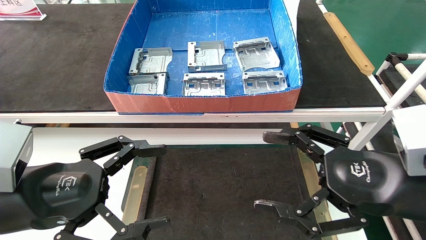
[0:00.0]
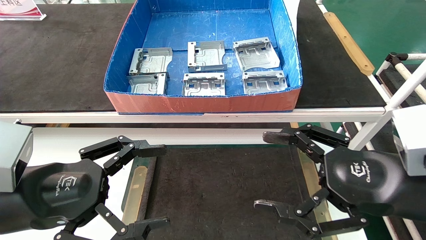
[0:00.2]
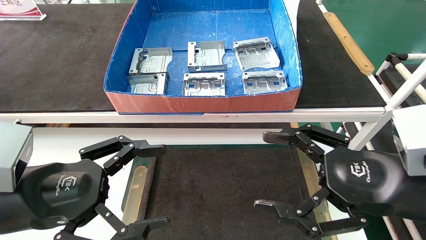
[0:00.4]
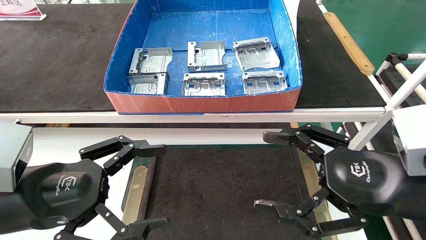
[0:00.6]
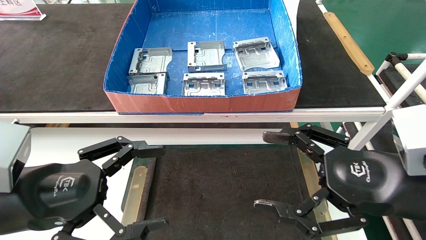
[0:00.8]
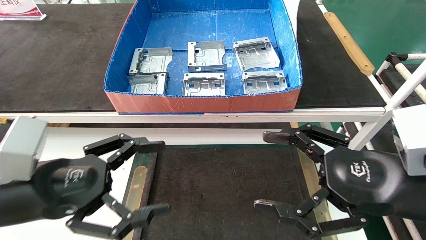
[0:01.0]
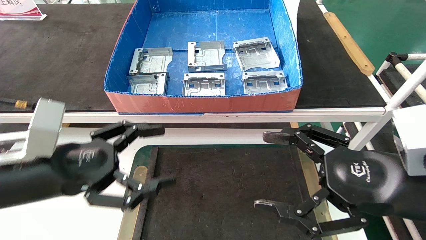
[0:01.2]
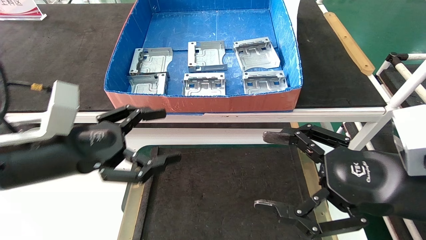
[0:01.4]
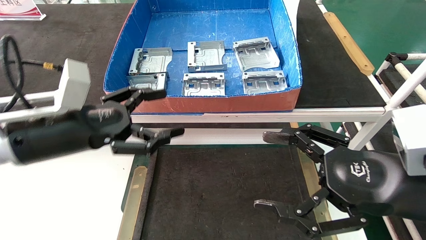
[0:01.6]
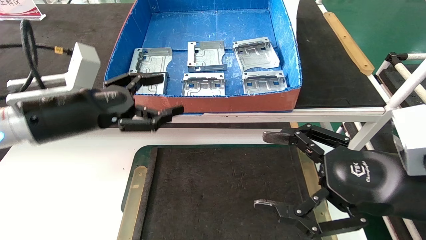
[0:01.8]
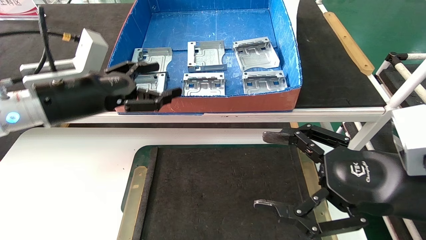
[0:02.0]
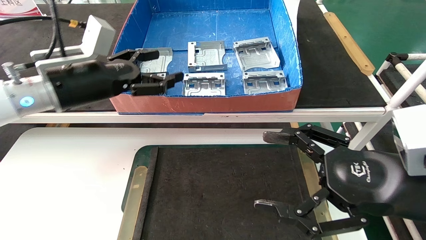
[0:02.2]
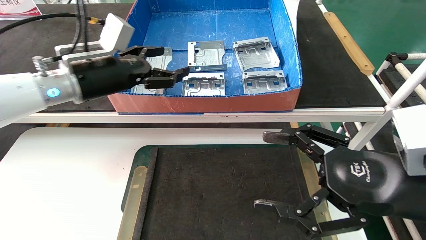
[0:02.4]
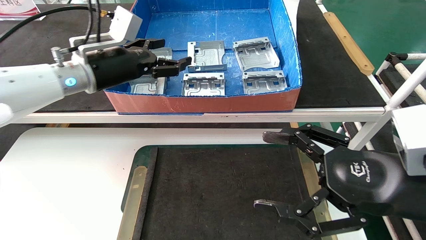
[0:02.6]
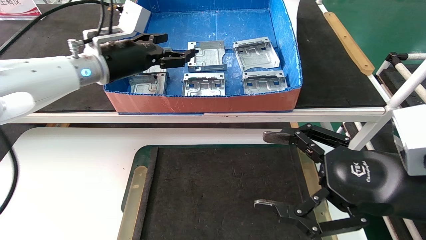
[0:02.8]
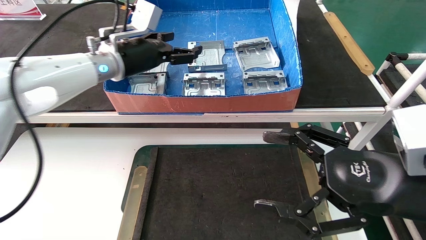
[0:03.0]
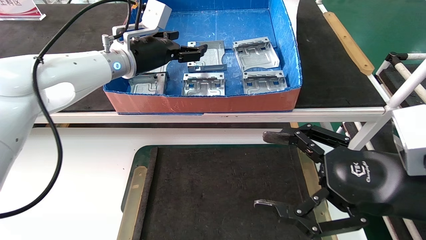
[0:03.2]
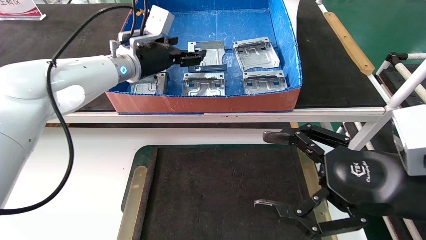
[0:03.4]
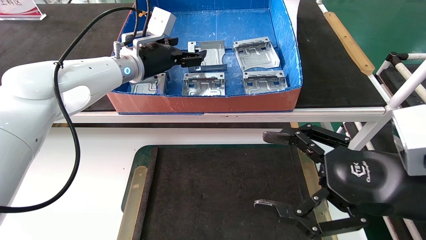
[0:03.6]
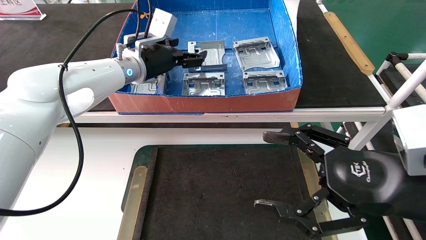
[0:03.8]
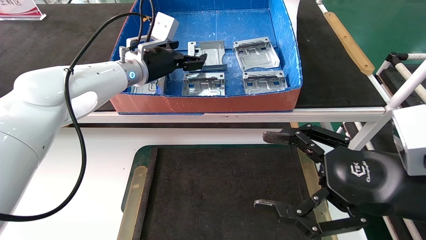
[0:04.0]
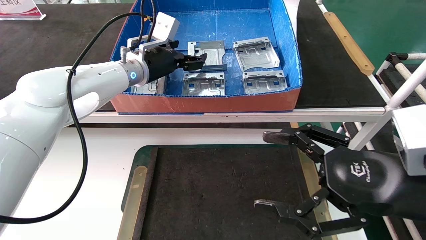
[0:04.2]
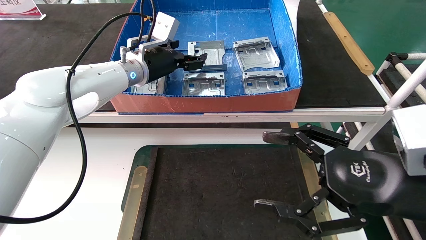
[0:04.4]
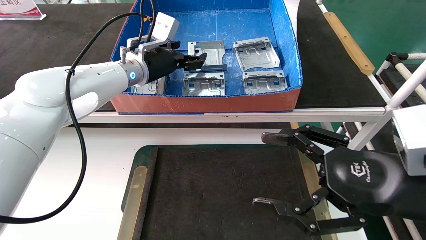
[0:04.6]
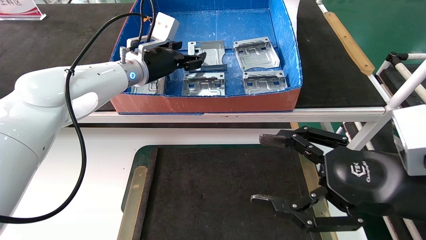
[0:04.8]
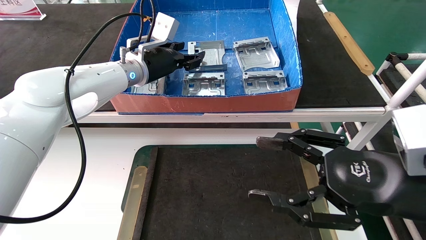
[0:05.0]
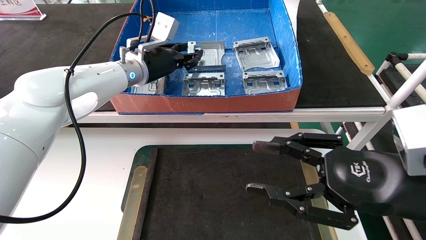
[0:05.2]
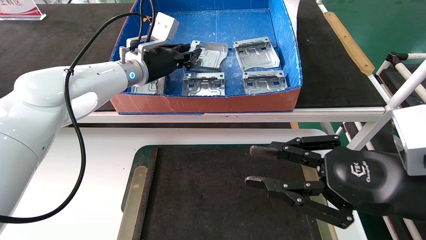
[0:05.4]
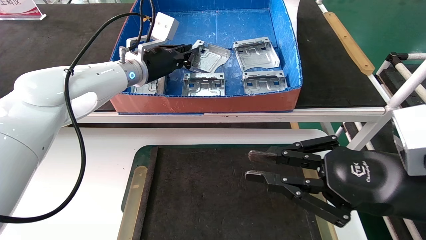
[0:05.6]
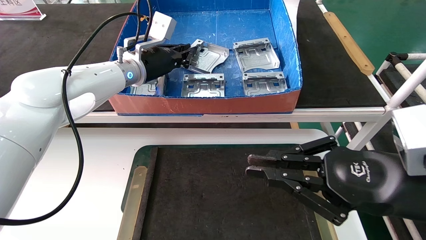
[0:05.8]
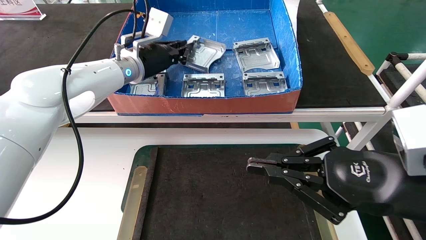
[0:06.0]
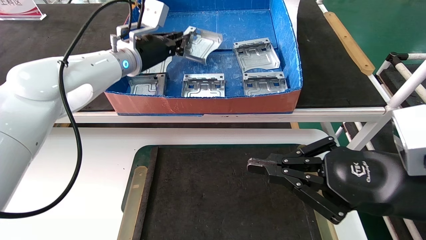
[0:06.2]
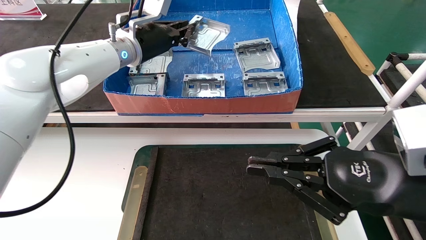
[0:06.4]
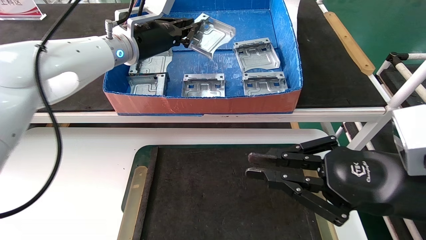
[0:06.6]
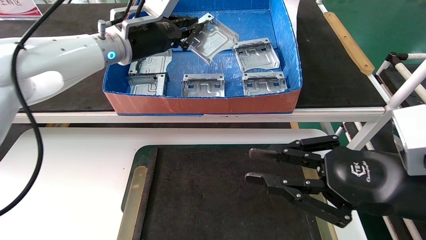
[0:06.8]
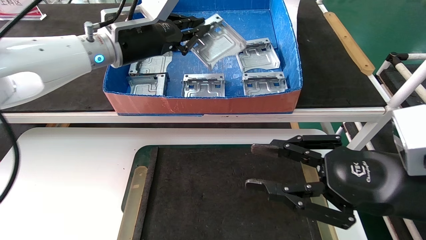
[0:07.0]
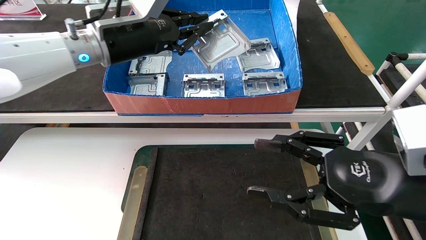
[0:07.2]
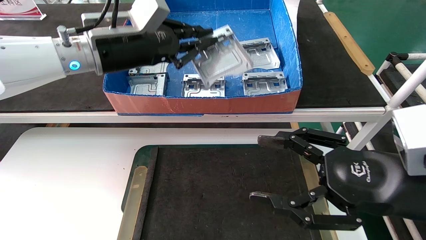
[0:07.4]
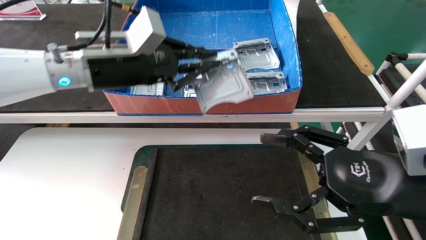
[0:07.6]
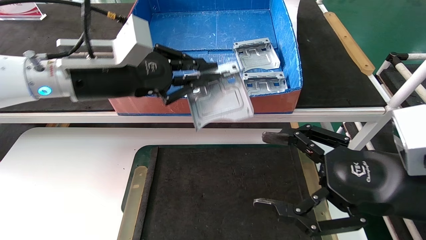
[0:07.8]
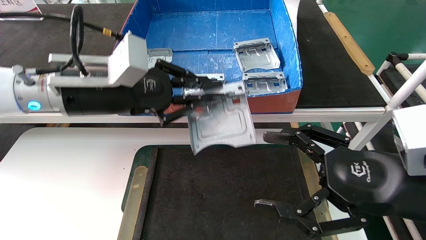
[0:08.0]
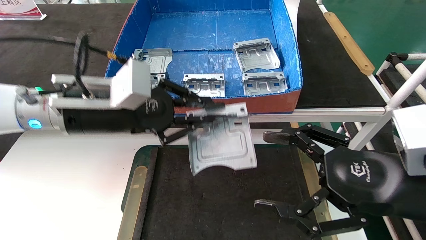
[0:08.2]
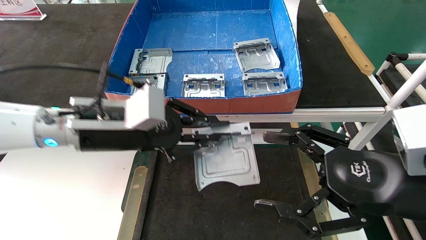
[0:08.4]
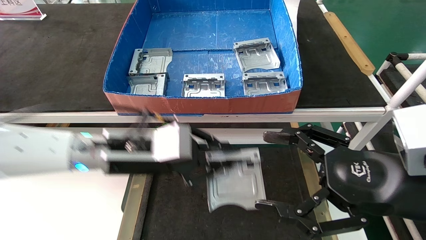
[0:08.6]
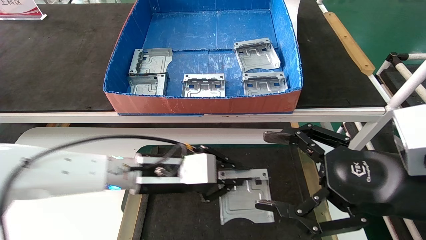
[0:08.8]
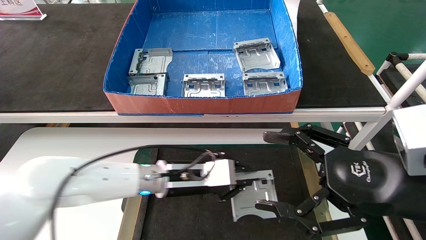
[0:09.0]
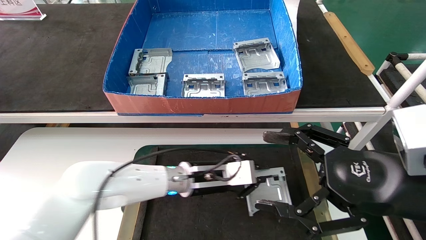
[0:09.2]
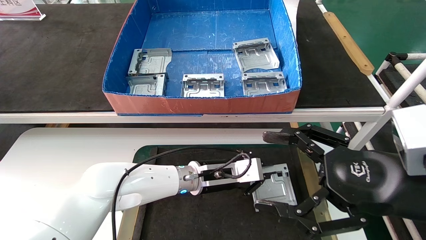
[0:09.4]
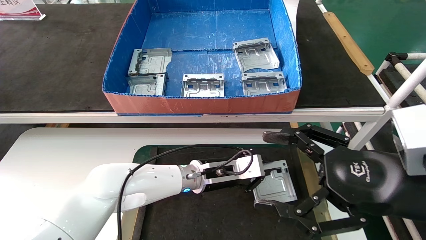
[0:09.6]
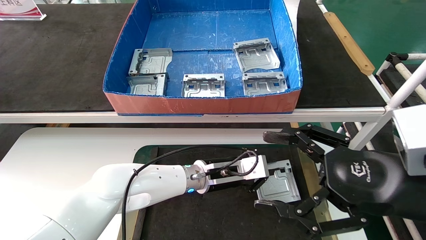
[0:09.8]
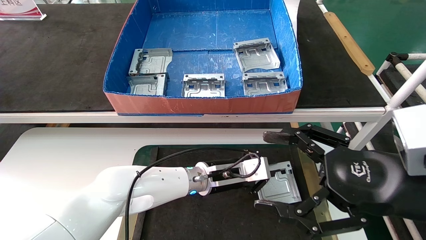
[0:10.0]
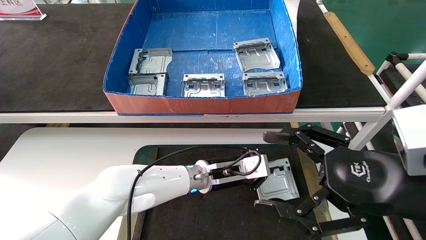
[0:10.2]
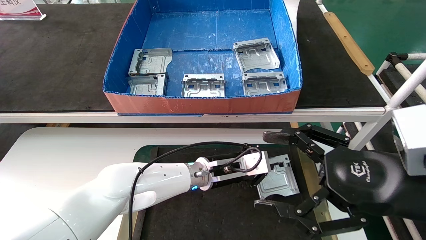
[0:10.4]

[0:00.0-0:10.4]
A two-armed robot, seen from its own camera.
Task of the whole recording: take the accessories out of the box and place them on the table.
Step, 0:01.0 to 0:05.6: Pick up the hard drive bracket from the feeding area.
0:00.0 to 0:01.4: The left gripper shifts roughly 5 cm forward.
0:01.4 to 0:03.0: The left gripper travels forward and upward by about 20 cm.
0:03.0 to 0:04.4: The left gripper changes place by approximately 5 cm.
0:04.4 to 0:06.0: The right gripper closes its fingers. The left gripper closes its fingers.
0:06.0 to 0:07.4: The left gripper is displaced backward by about 10 cm, while the right gripper opens up.
0:07.4 to 0:09.0: The right gripper opens its fingers, while the left gripper is displaced downward and to the right by approximately 25 cm.
0:09.0 to 0:10.4: The left gripper shifts about 10 cm to the right.

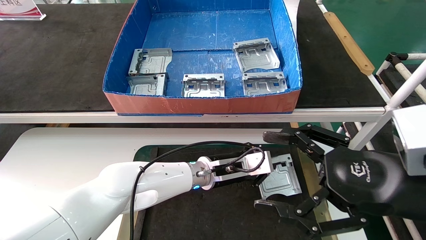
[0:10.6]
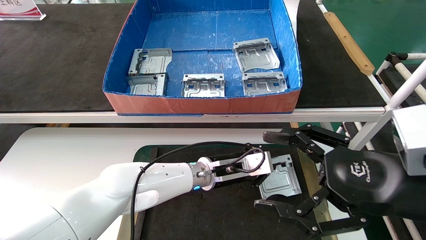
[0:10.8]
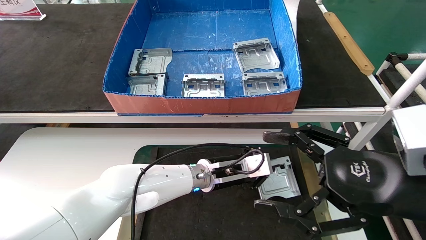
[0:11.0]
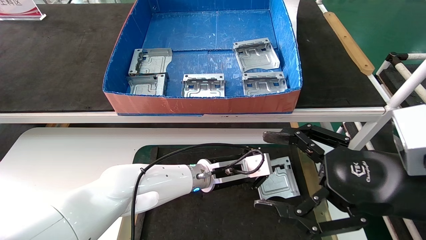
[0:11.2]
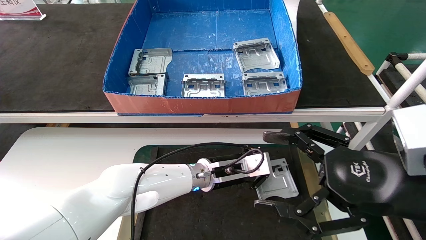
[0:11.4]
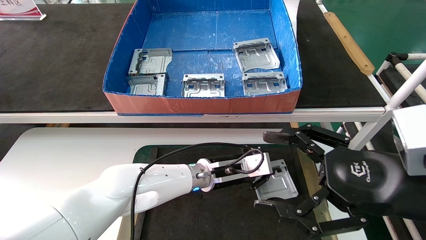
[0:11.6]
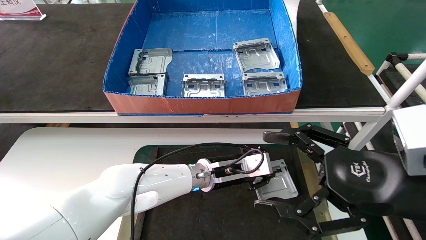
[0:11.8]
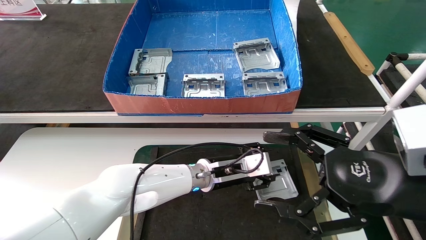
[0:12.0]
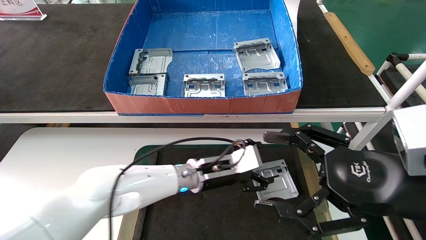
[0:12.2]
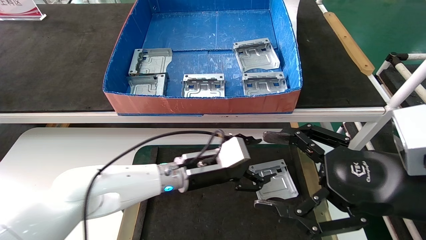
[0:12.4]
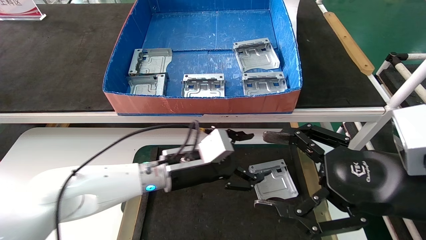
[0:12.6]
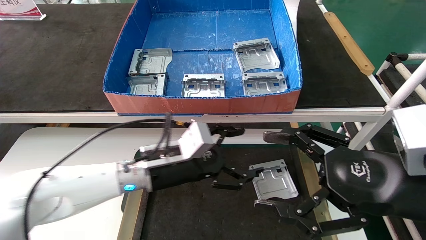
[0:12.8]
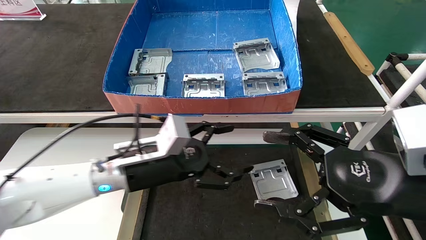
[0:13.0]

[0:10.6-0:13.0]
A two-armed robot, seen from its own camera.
Task of the whole recording: take the accessories out of the box and place them on the table.
0:10.6 to 0:11.8: Both grippers stay about where they are.
0:11.8 to 0:13.0: The left gripper shifts about 15 cm to the left, backward and upward, and opens up.
